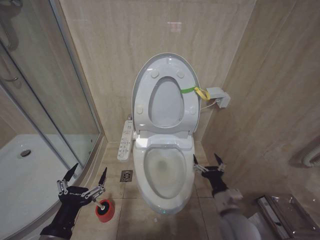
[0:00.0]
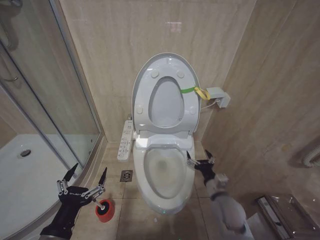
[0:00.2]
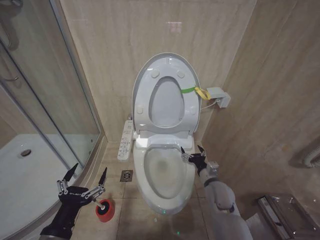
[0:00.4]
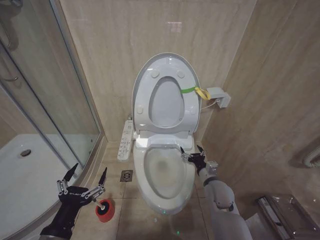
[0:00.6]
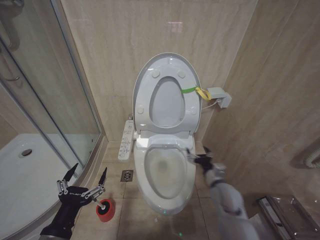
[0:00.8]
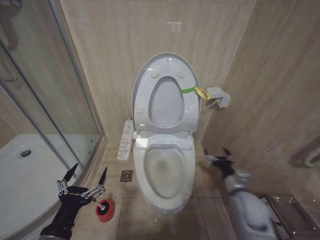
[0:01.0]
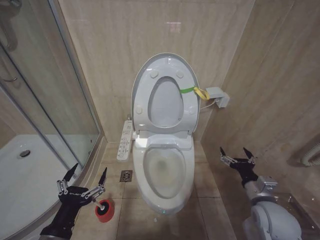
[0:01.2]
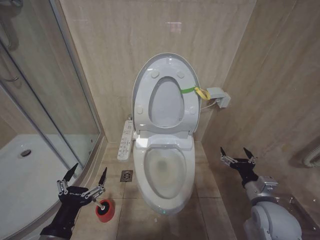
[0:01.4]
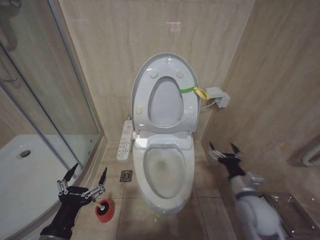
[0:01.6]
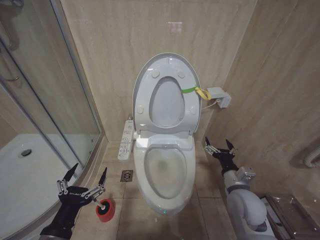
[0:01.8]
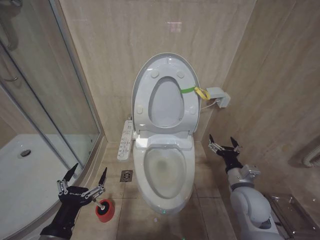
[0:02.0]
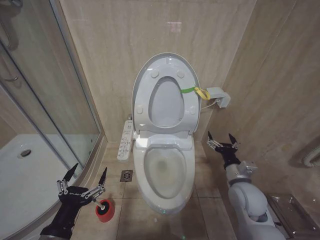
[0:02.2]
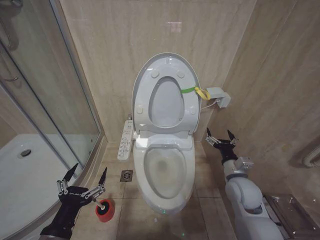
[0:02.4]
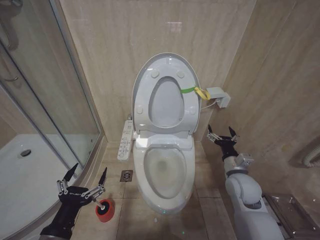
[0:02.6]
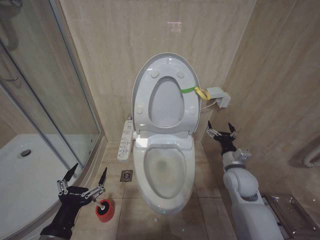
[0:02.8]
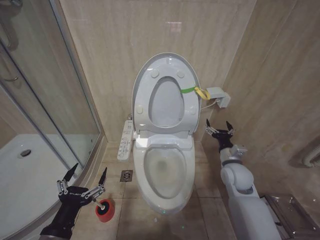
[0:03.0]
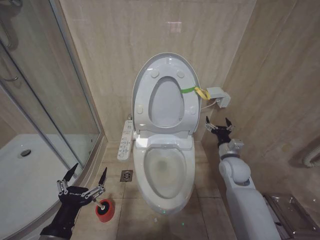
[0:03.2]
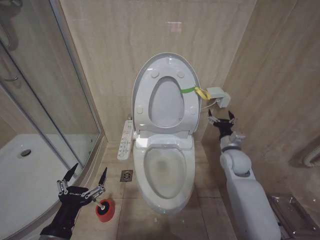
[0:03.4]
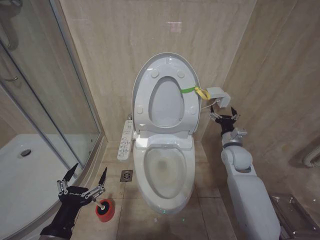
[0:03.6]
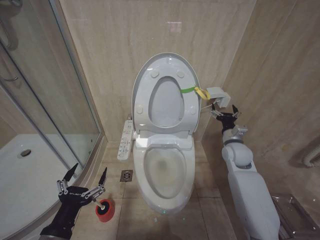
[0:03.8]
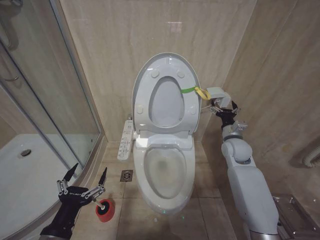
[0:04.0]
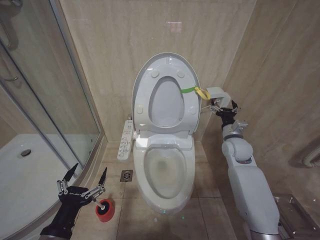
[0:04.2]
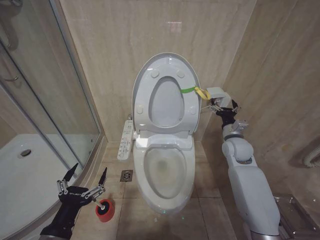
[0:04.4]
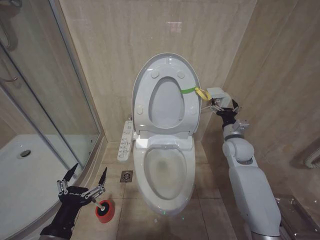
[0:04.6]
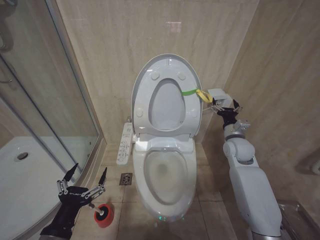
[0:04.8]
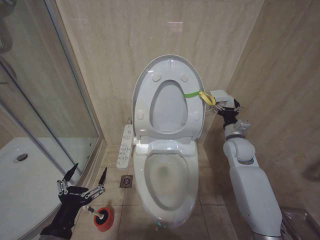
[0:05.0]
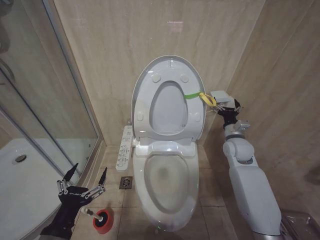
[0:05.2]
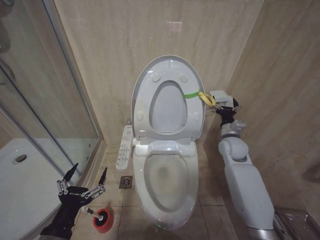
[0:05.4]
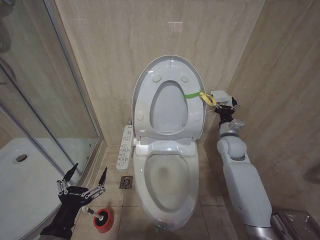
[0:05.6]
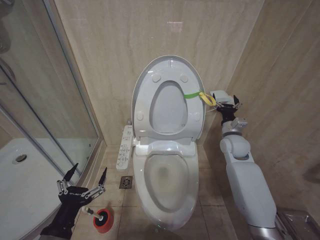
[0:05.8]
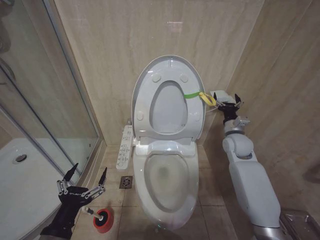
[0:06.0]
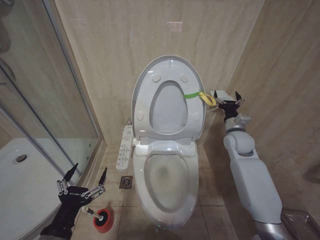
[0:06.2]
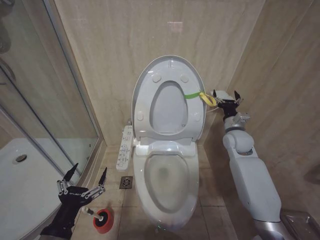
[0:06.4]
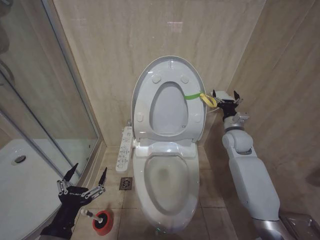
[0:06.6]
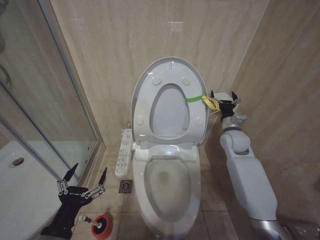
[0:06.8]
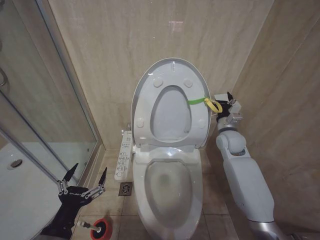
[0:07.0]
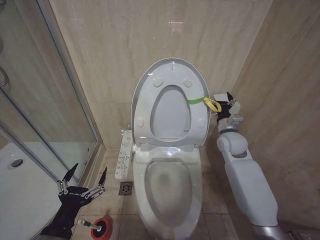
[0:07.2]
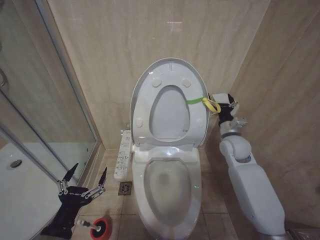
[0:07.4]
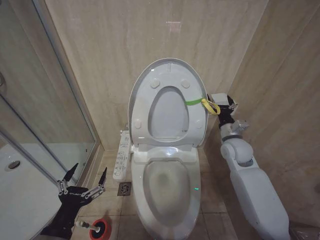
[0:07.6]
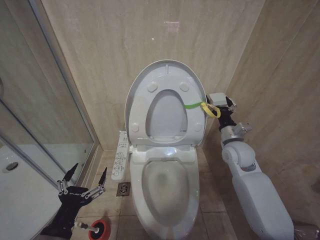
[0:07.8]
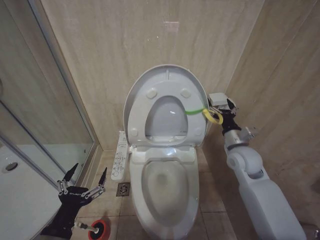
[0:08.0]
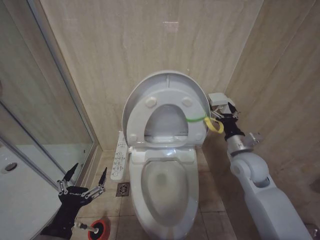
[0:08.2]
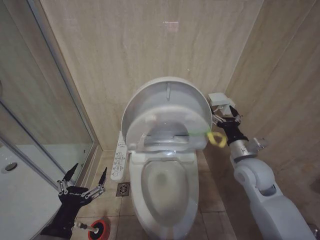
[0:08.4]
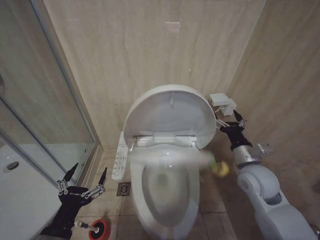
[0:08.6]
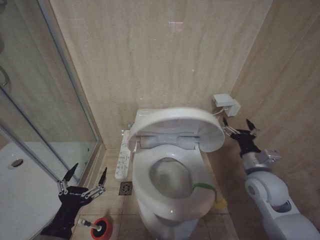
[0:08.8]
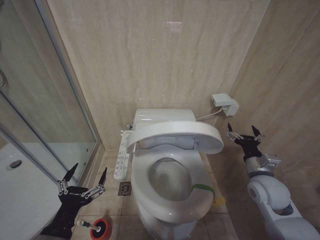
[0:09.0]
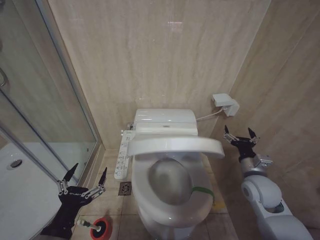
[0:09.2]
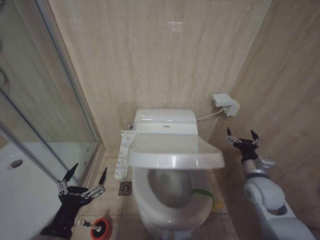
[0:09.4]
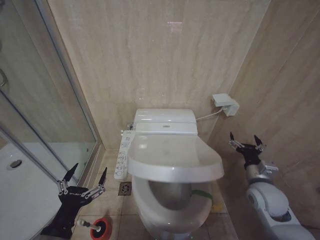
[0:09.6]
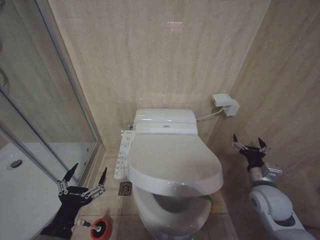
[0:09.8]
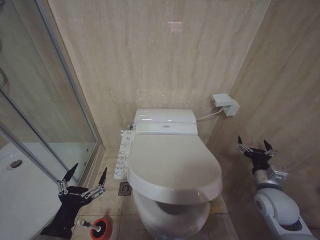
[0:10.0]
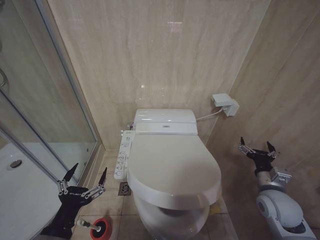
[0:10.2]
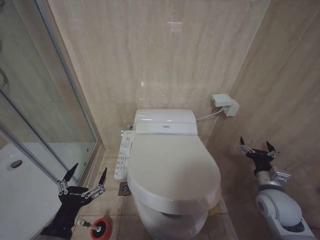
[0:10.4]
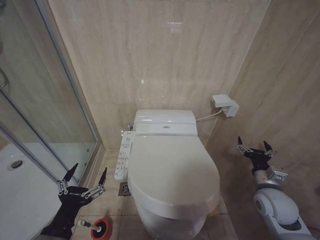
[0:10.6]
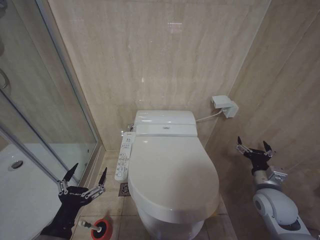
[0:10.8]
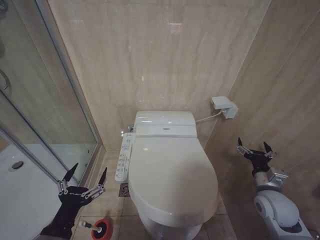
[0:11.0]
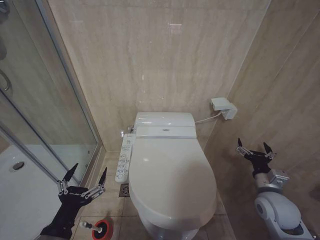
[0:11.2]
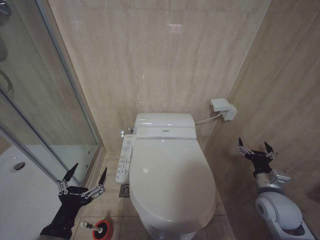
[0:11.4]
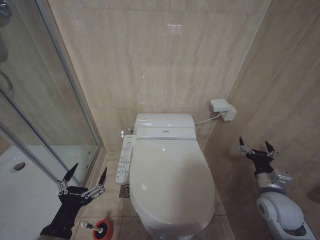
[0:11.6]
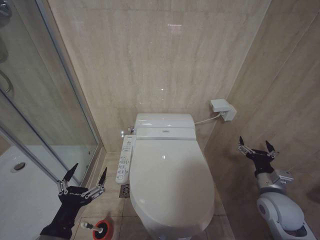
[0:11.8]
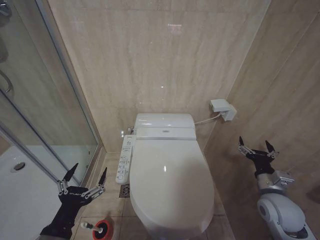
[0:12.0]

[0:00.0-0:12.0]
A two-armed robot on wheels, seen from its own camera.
Task of the whole recording: Open the toilet lid, clean the toilet bowl with a toilet brush, close the toilet lid, and flush.
0:00.0 to 0:01.6: The right gripper heads to the right, covering roughly 5 cm, and goes forward and returns, approximately 15 cm each way.
0:01.6 to 0:03.0: The right gripper goes roughly 10 cm forward.
0:03.0 to 0:04.4: The right gripper moves forward and upward, some 10 cm.
0:04.4 to 0:07.6: The grippers make only small movements.
0:07.6 to 0:09.0: The right gripper moves backward, some 15 cm.
0:09.0 to 0:10.4: The right gripper changes place by some 5 cm.
0:10.4 to 0:12.0: Both grippers stay about where they are.

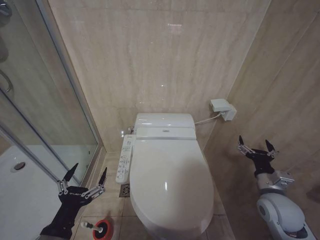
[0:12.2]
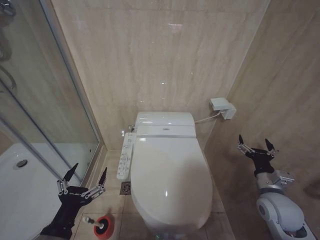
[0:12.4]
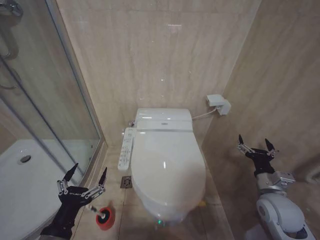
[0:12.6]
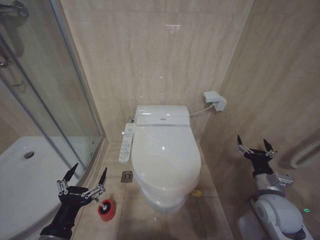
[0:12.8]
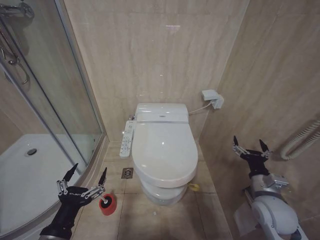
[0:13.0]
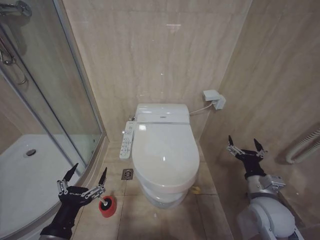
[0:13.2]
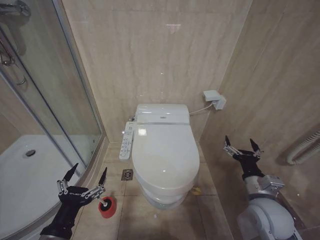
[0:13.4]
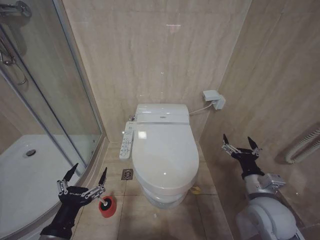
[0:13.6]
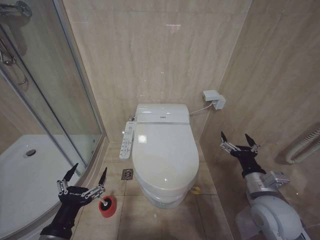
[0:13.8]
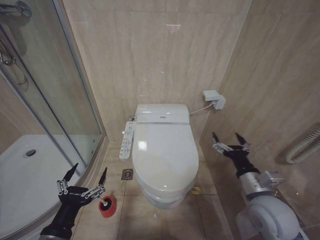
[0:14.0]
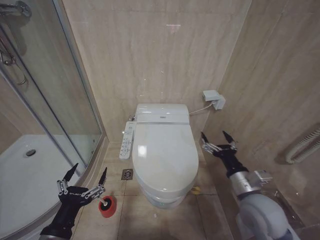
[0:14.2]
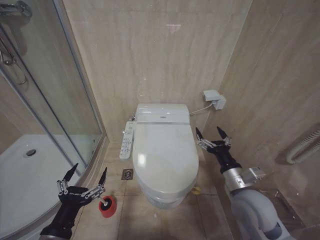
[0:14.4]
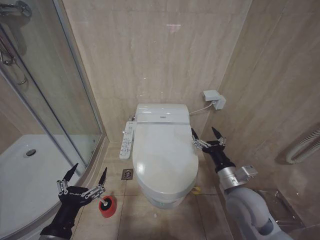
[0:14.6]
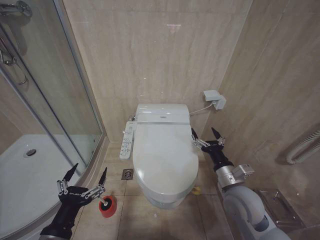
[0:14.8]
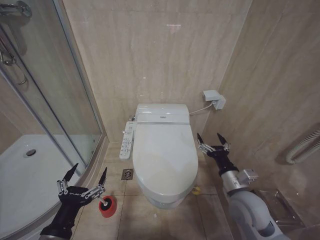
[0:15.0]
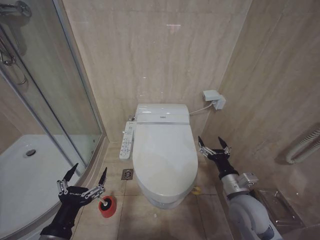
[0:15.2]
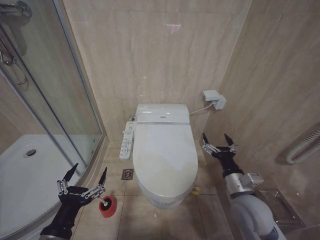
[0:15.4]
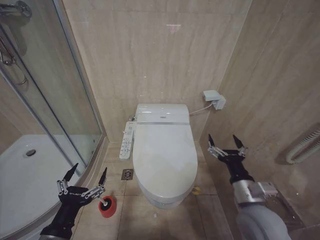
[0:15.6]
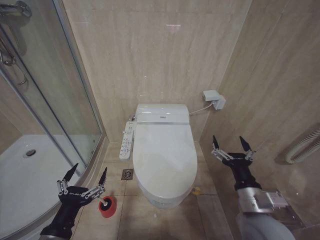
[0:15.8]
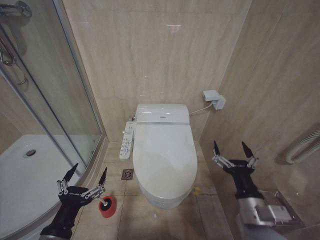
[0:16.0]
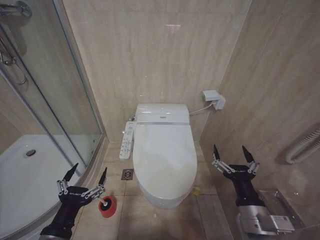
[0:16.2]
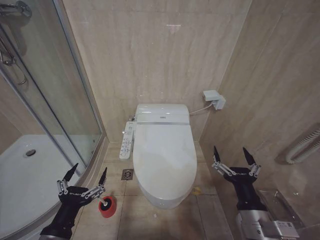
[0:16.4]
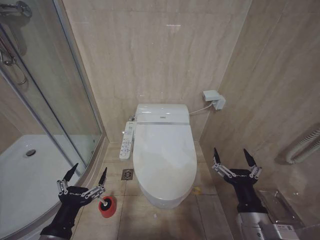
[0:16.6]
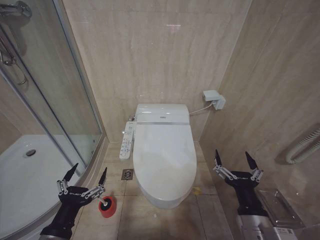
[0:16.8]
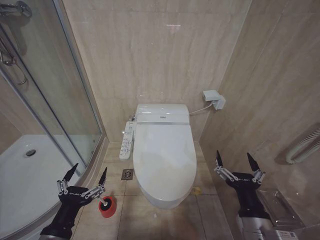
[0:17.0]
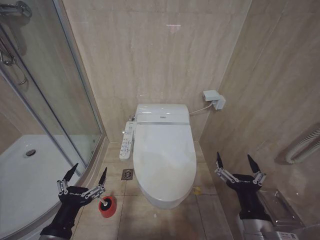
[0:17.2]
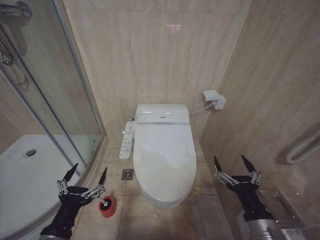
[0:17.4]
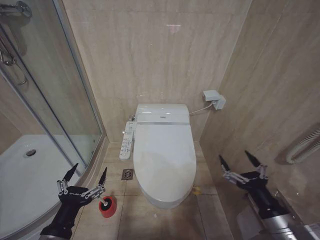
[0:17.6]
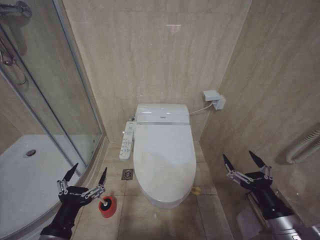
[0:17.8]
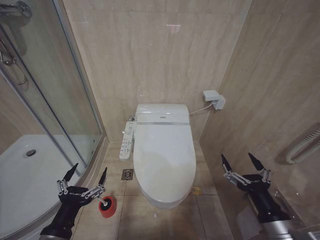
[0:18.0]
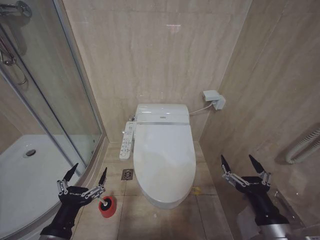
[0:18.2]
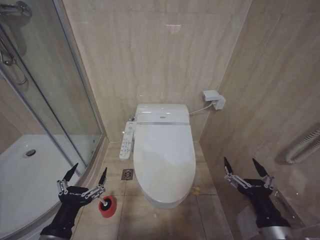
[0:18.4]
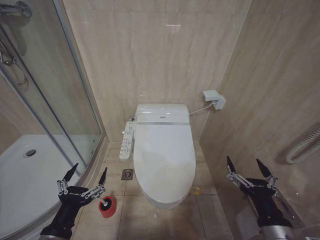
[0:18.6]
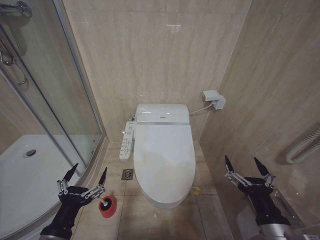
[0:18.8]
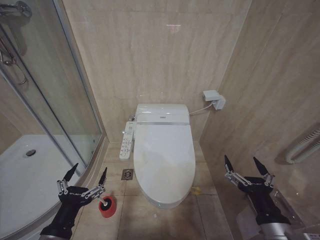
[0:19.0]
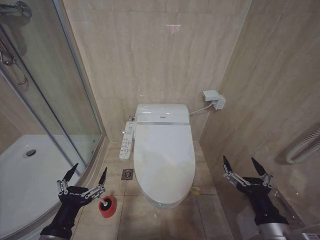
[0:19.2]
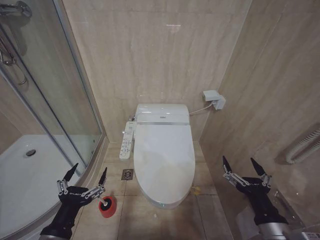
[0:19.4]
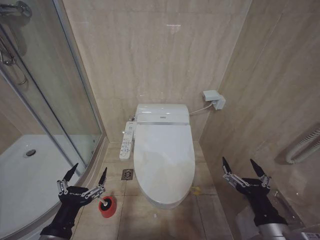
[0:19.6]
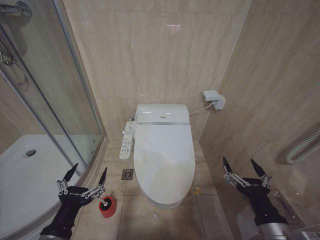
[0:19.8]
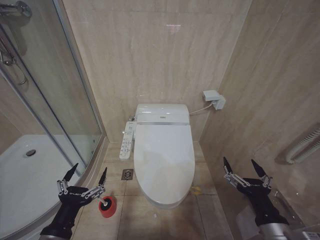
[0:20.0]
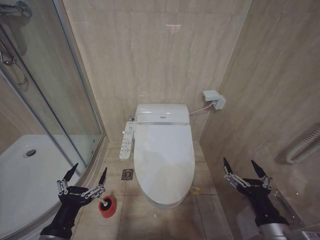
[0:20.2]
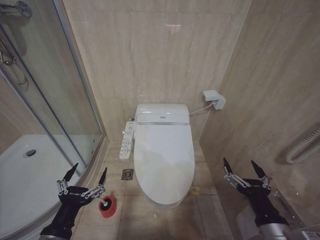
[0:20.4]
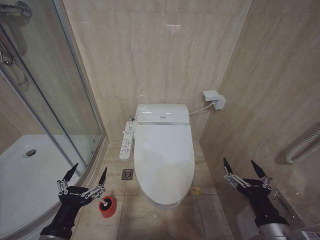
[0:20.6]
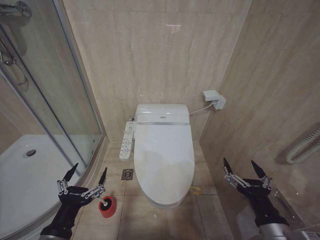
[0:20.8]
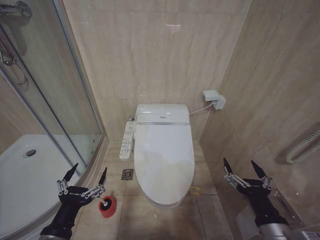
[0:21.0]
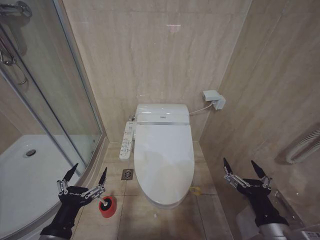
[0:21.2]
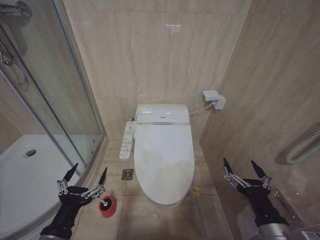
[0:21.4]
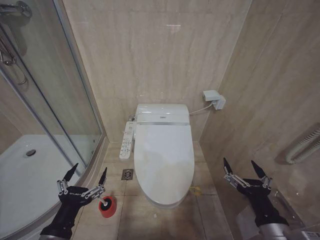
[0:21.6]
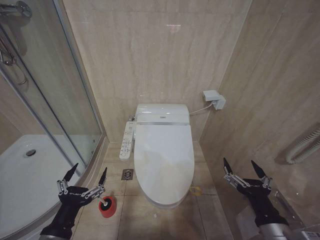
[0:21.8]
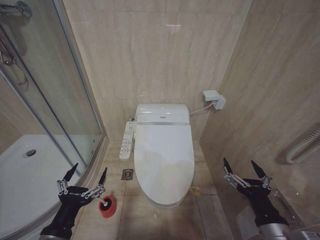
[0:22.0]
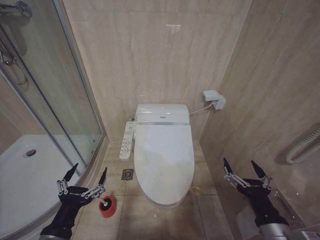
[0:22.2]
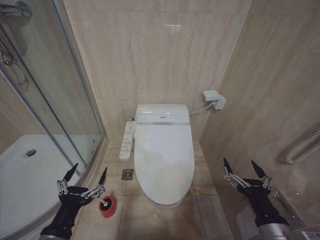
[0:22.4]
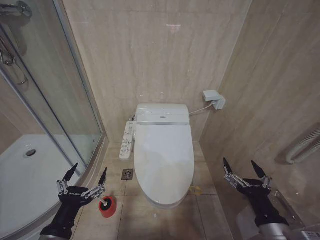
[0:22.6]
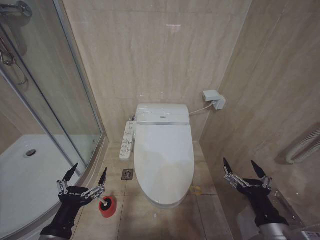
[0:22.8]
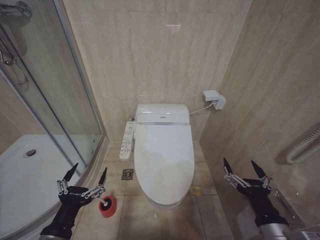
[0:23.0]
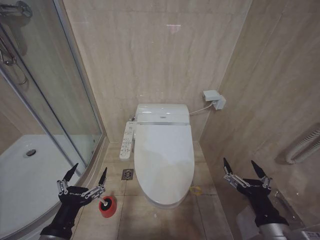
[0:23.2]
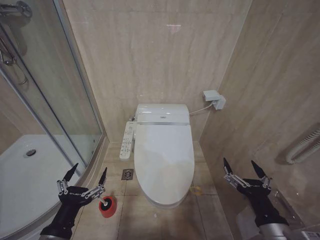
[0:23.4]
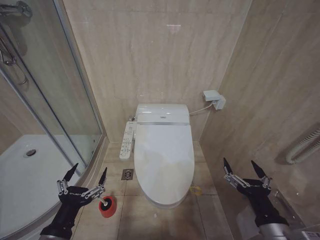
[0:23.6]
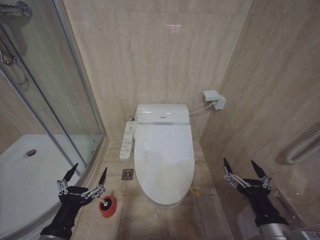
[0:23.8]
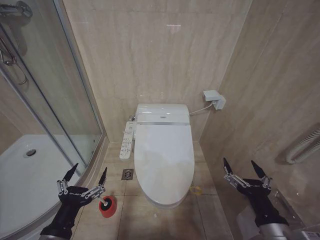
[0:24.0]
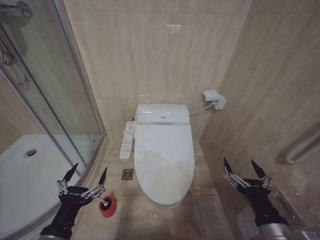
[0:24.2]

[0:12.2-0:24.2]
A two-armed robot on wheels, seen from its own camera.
Task of the whole recording: Open the toilet lid, clean the toilet bowl with a toilet brush, close the toilet lid, and flush.
0:12.2 to 0:13.8: The right gripper goes approximately 5 cm to the left.
0:13.8 to 0:15.2: The right gripper shifts by roughly 5 cm.
0:15.2 to 0:16.6: The right gripper goes roughly 10 cm backward.
0:19.8 to 0:24.2: Both grippers stay put.
